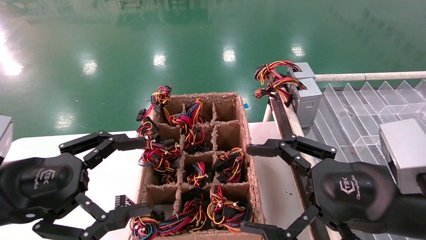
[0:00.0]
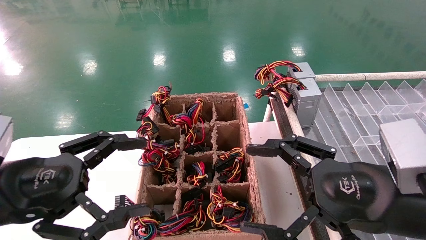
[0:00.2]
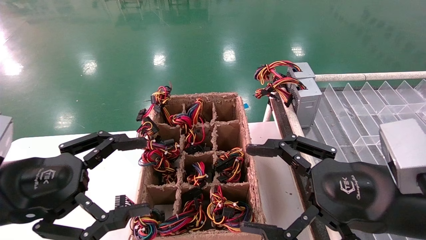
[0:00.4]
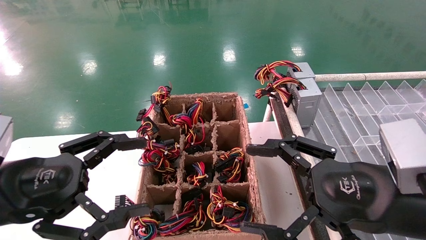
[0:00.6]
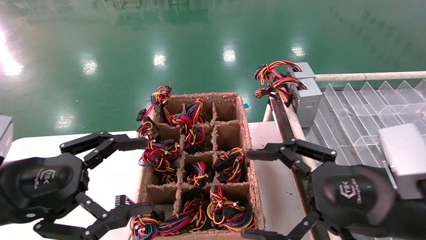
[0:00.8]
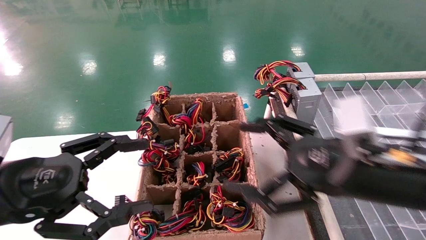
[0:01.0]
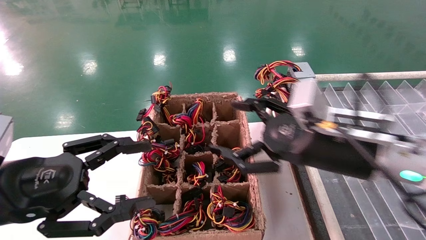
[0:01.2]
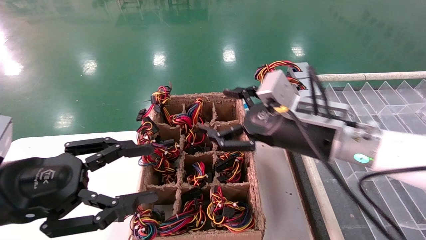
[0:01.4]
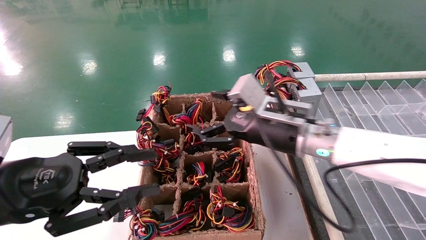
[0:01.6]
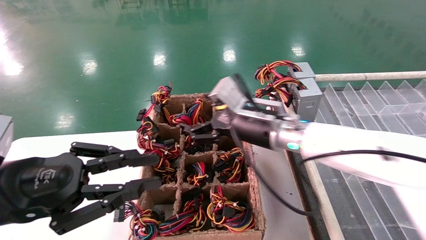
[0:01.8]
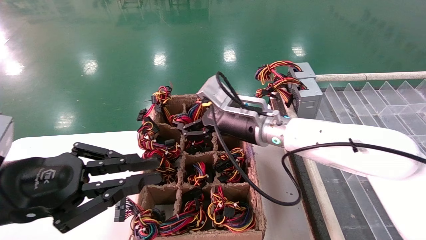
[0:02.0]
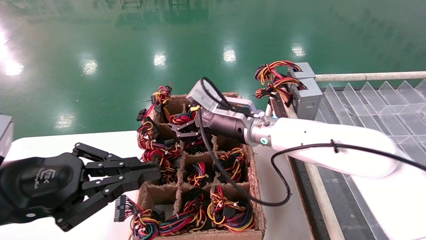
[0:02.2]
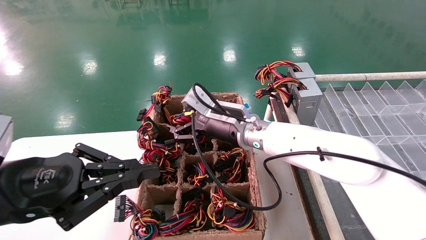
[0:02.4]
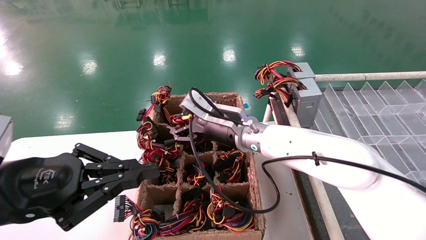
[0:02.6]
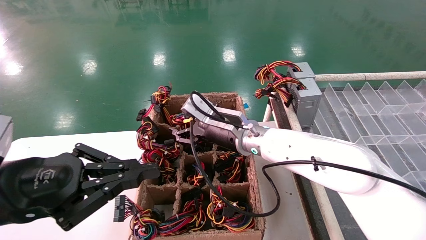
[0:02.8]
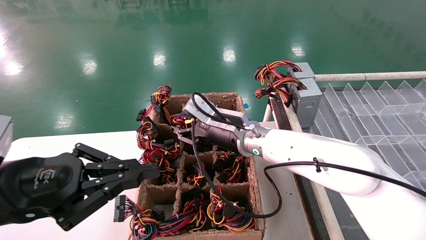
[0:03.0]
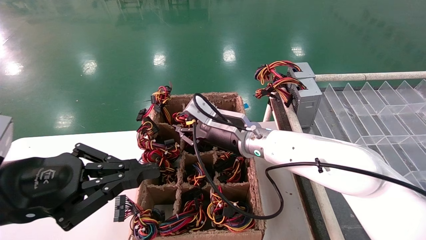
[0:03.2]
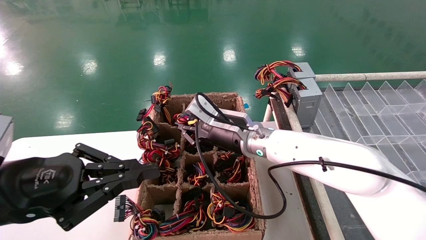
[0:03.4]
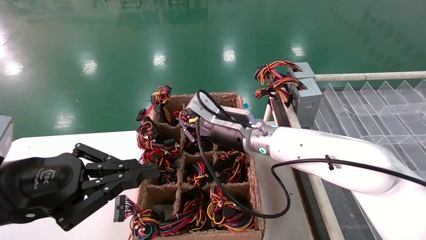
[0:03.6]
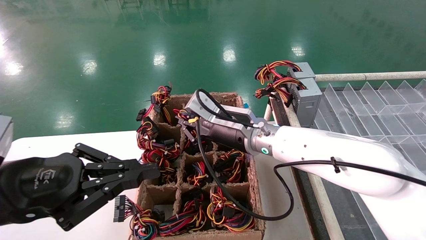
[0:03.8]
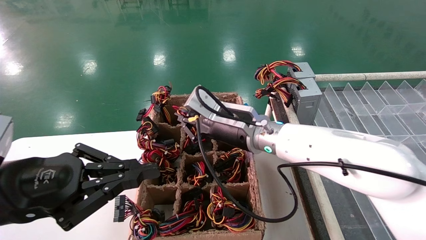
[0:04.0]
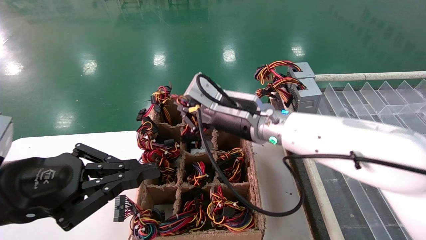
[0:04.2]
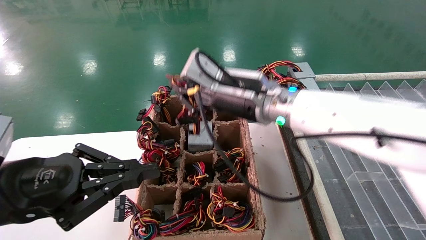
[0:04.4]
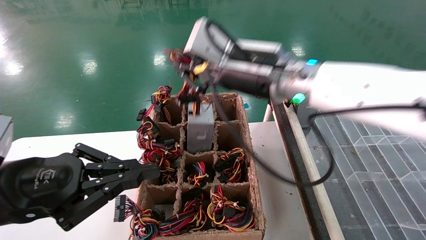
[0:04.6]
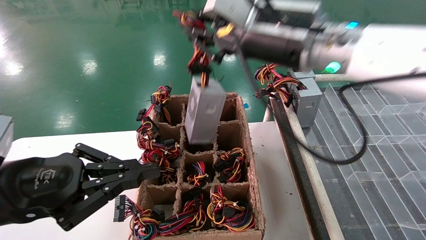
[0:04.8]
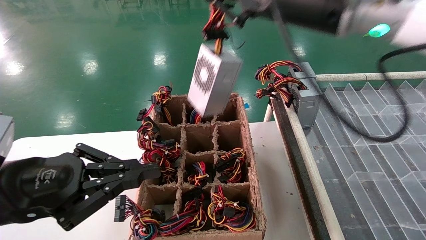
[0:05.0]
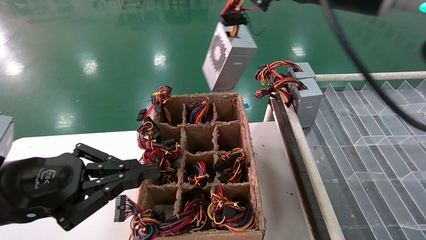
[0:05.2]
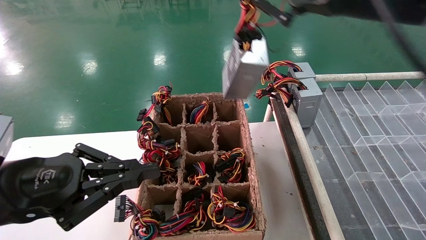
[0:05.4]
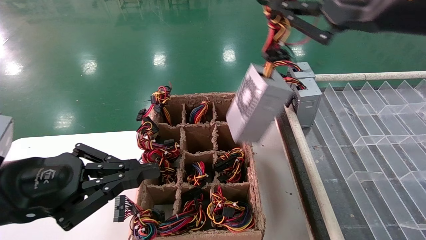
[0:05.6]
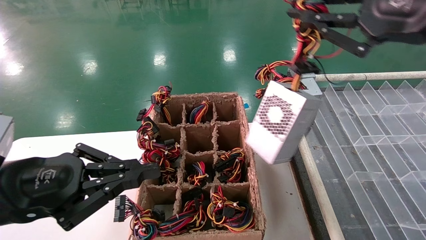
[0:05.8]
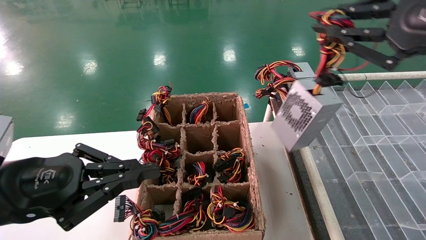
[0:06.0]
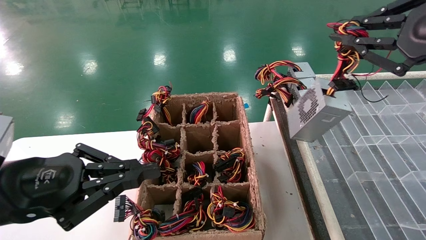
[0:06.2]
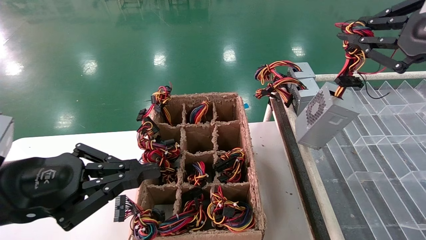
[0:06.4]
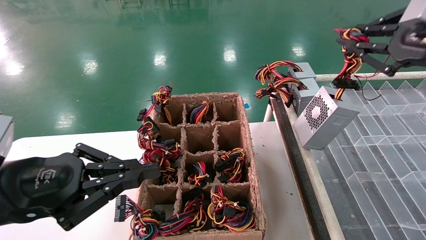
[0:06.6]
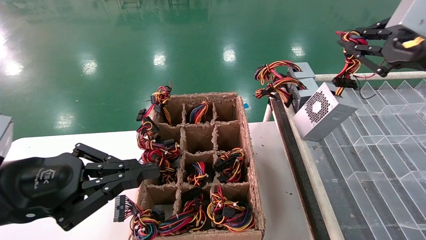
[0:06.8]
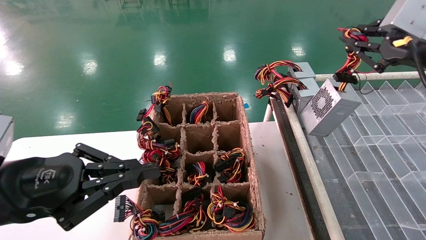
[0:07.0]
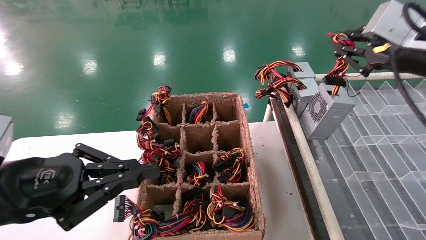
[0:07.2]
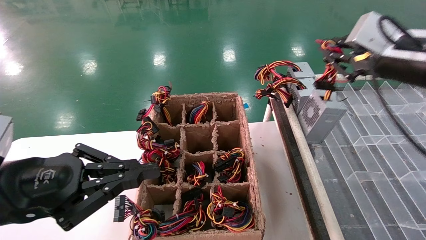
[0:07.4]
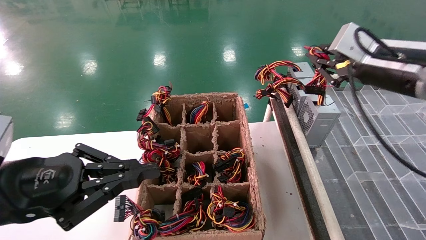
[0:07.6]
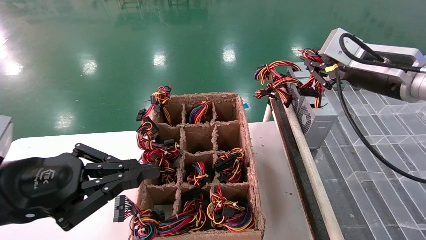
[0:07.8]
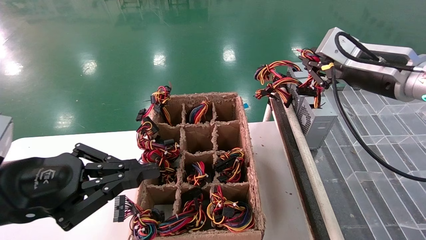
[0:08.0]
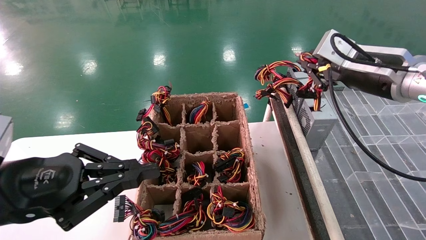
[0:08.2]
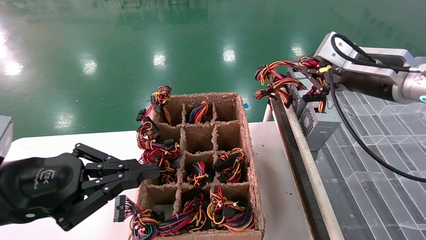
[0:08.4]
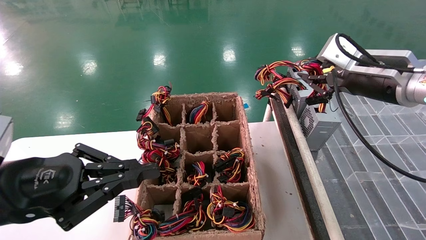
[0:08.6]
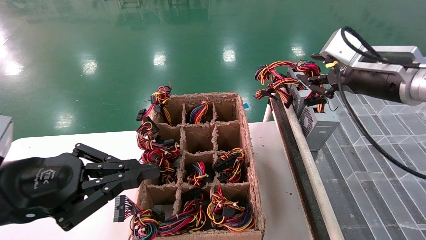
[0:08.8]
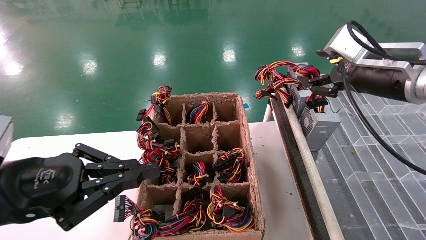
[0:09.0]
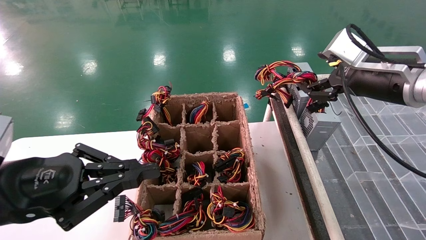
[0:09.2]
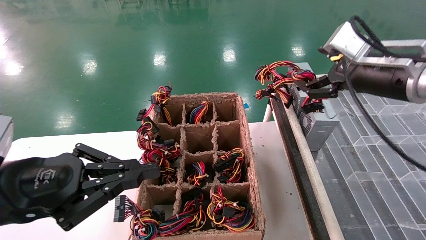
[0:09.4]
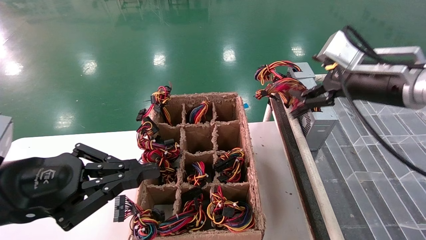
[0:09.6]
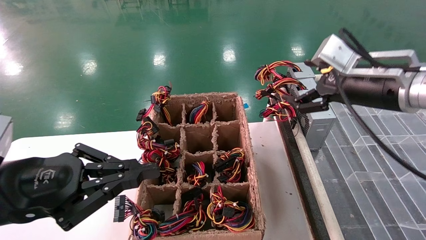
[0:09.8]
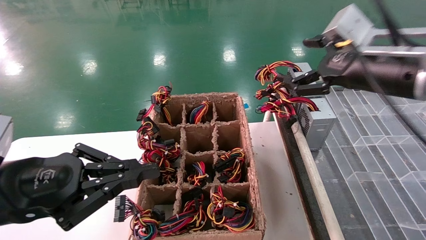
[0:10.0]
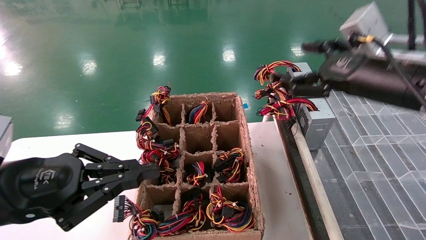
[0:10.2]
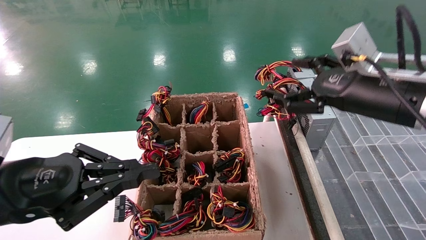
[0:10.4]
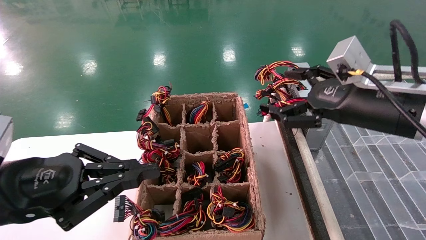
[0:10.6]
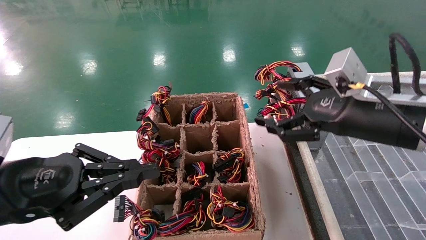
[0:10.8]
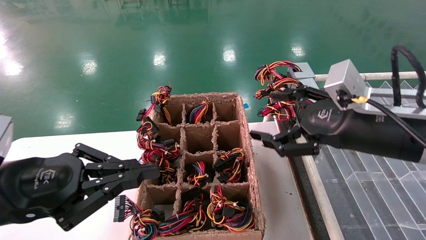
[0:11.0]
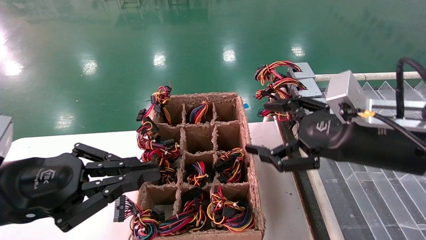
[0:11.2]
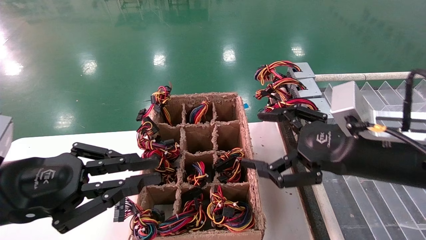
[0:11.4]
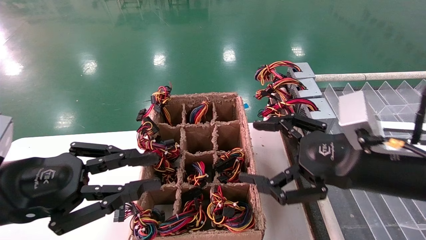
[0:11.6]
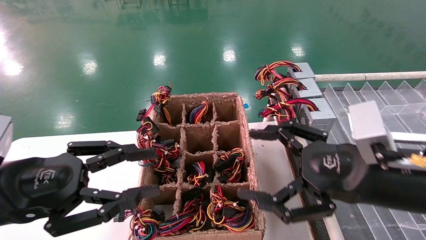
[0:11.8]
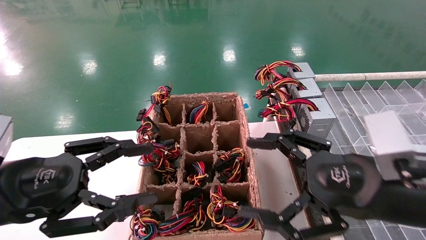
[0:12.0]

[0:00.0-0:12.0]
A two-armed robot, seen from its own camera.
Step, 0:01.0 to 0:03.8: Grab the main unit power supply from the containment box.
Step, 0:04.0 to 0:09.8: Place the main unit power supply in the designated area.
0:00.0 to 0:01.6: The right gripper heads forward and to the left, covering about 20 cm; the left gripper closes up.
0:01.6 to 0:03.0: The left gripper closes up. Meanwhile the right gripper goes about 10 cm to the left and forward.
0:03.0 to 0:04.4: The right gripper moves upward and backward, roughly 10 cm, and closes.
0:04.4 to 0:06.0: The right gripper shifts approximately 30 cm to the right, backward and upward.
0:06.0 to 0:07.6: The right gripper heads forward and downward, covering roughly 15 cm.
0:07.6 to 0:09.0: The right gripper opens.
0:09.0 to 0:10.4: The right gripper shifts by approximately 5 cm, and opens its fingers.
0:10.4 to 0:12.0: The left gripper opens its fingers; the right gripper is displaced downward and backward by about 15 cm.

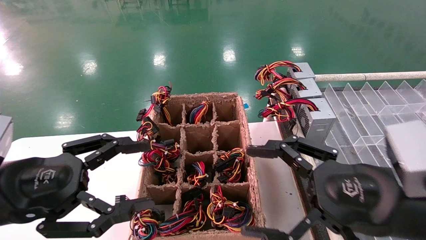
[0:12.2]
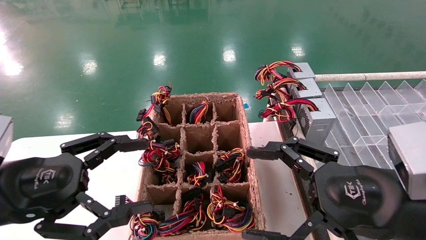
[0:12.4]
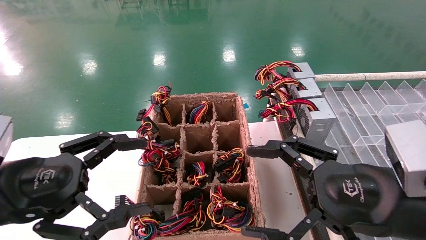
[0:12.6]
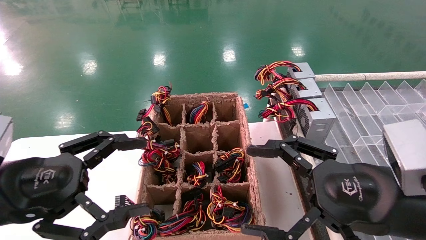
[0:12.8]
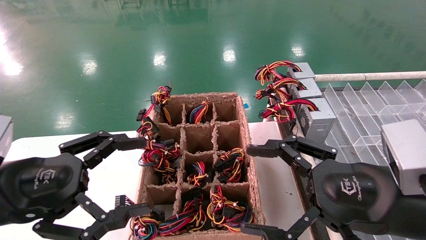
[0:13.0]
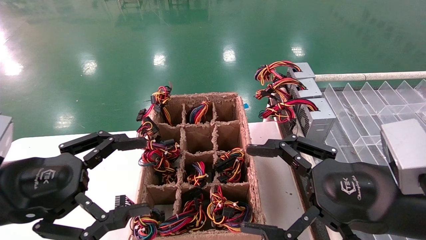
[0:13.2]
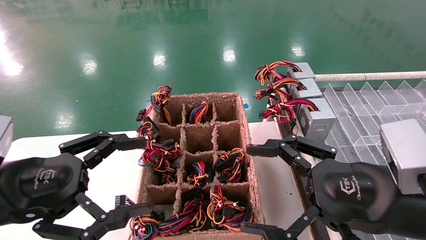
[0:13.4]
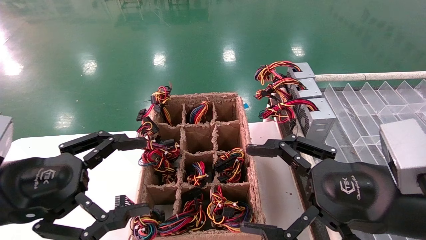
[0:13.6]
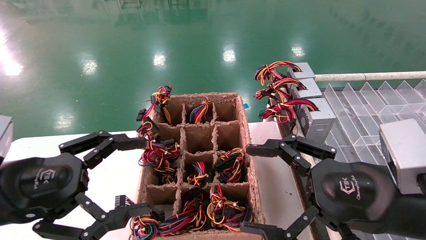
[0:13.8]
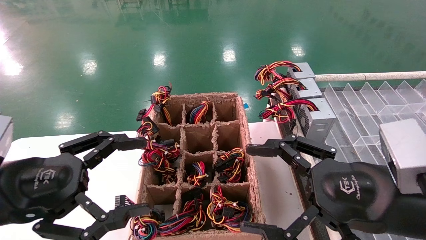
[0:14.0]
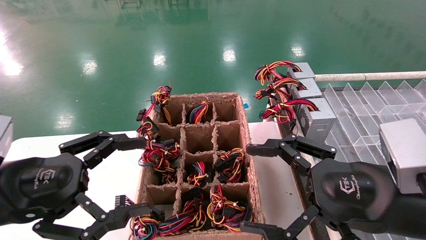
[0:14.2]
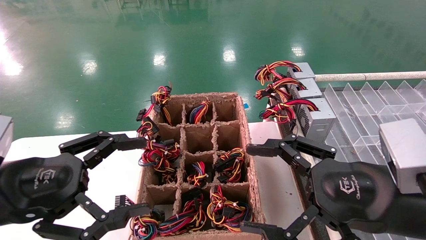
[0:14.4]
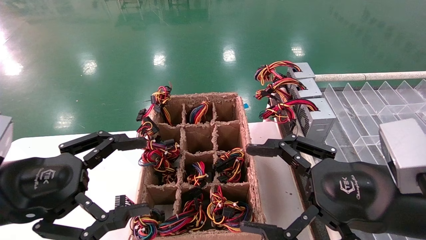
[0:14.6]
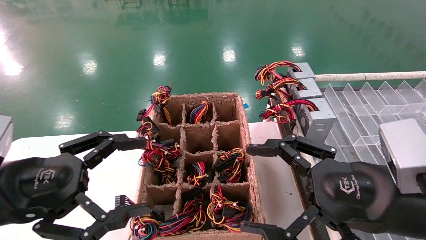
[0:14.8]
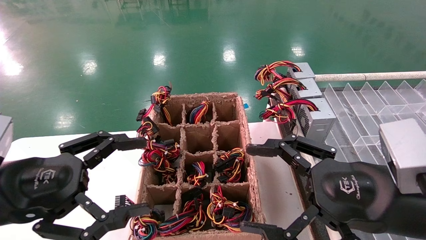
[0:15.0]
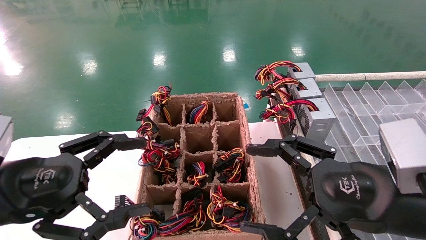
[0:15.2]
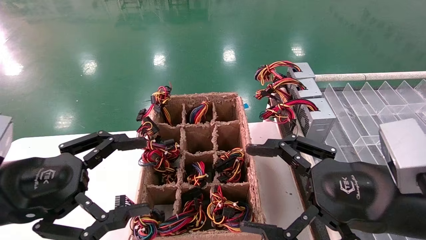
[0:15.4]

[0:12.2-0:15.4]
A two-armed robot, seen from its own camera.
0:12.2 to 0:15.4: Neither gripper changes place.
